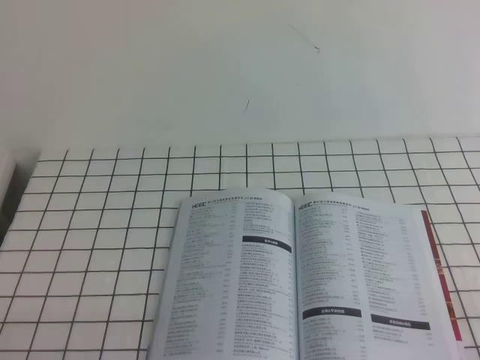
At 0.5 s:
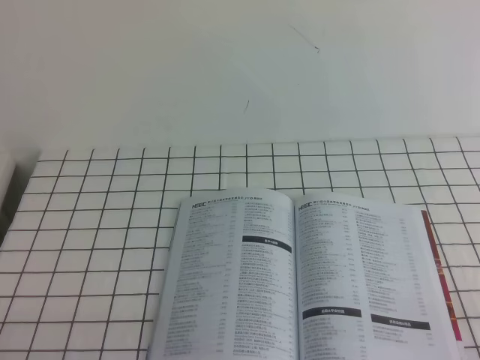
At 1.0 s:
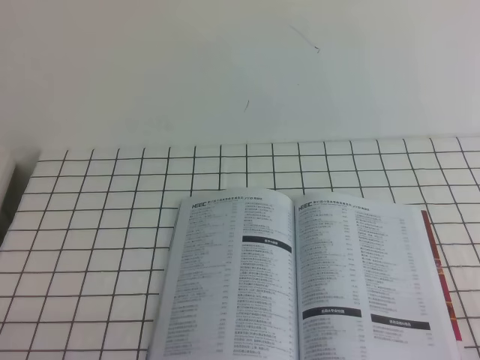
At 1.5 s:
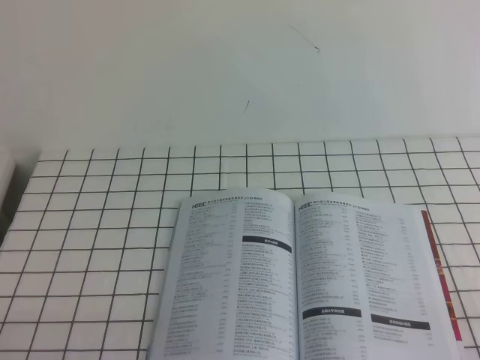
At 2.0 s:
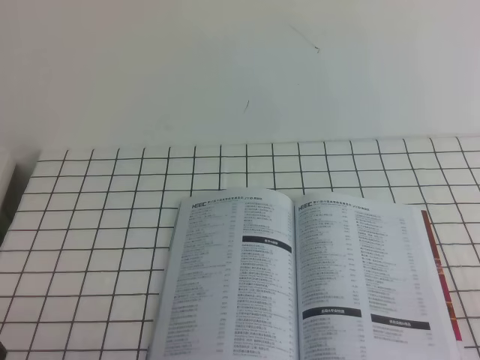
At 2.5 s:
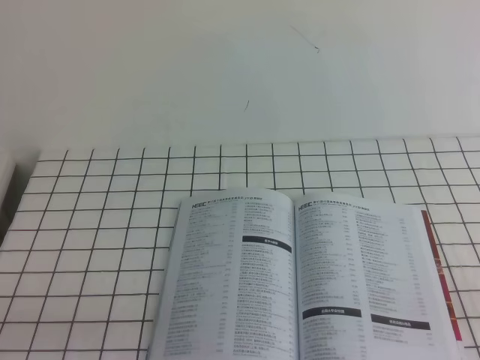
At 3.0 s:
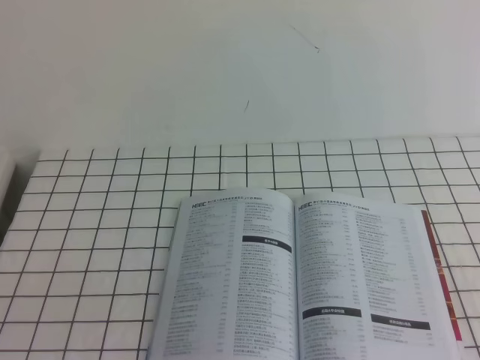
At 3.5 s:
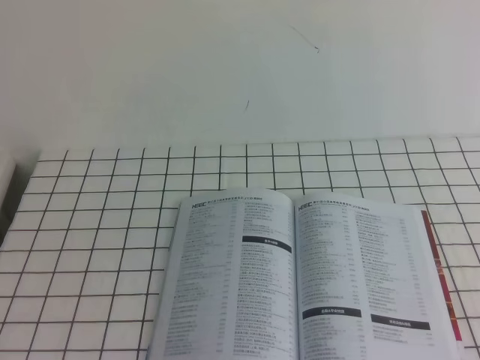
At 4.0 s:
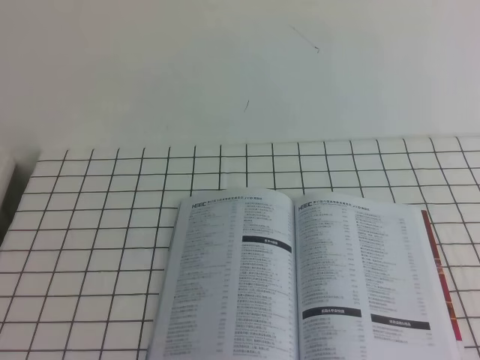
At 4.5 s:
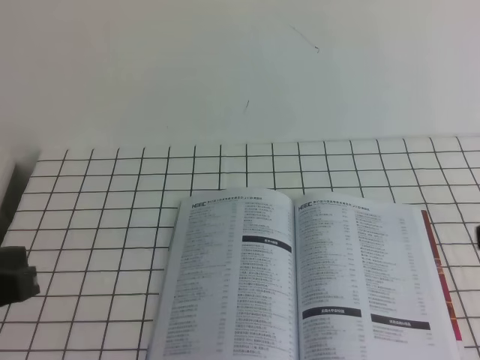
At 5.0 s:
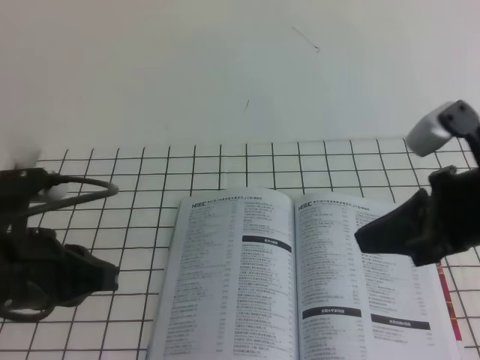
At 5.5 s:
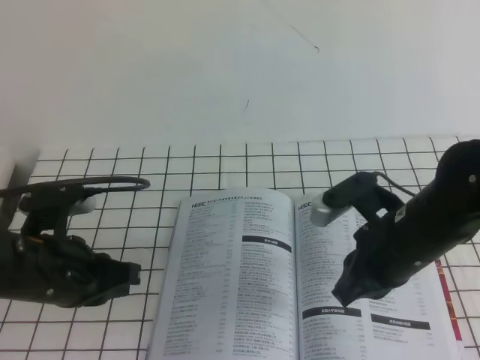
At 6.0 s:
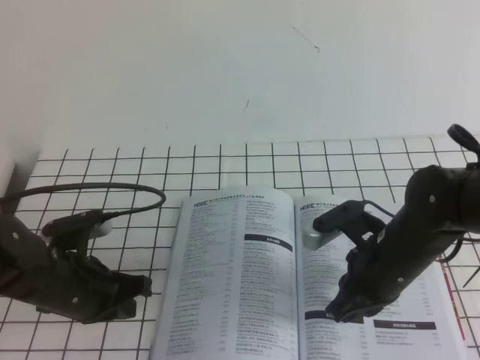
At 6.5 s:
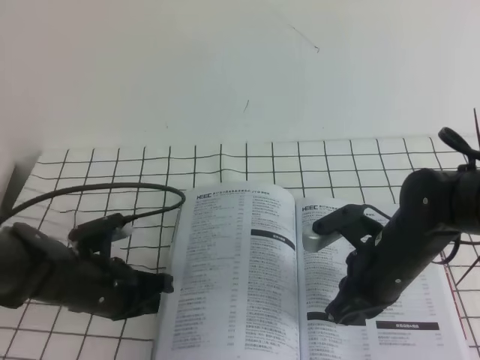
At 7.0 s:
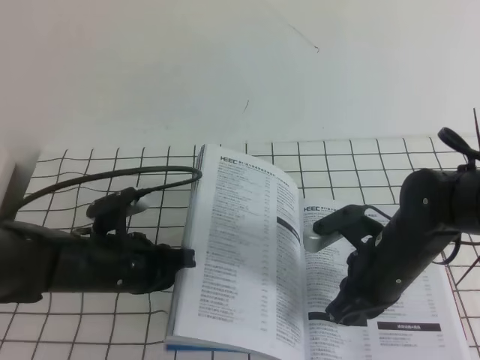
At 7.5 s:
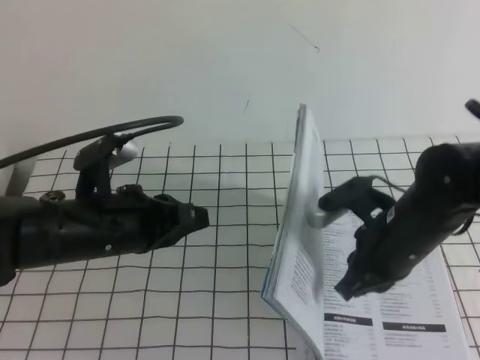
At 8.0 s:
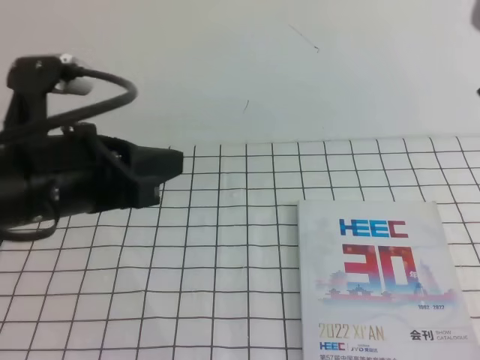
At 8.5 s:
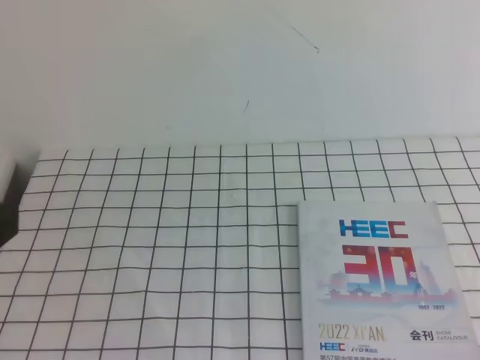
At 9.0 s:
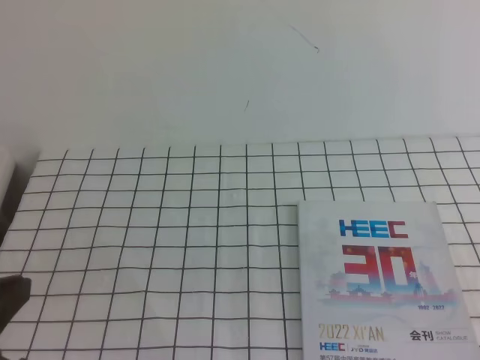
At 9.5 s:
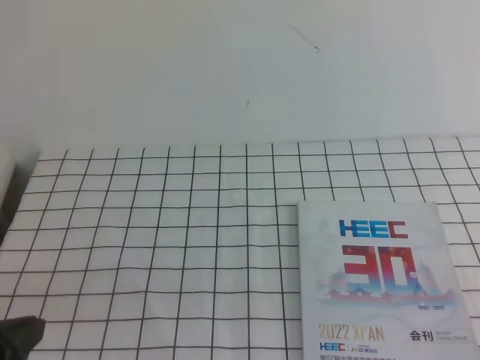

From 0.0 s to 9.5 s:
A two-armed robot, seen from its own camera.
Task of the whole recording: on the white tablecloth, hold the book with one hand and close it with the other.
From 4.0 s to 5.5 s: The right gripper goes approximately 30 cm to the left, forward and downward; the left gripper moves forward and downward, roughly 20 cm.
From 5.5 s to 7.5 s: The left gripper heads to the right, covering about 5 cm, and moves some 10 cm downward and comes back.
From 7.5 s to 9.5 s: The right gripper travels backward and to the right by some 25 cm, and travels upward and back again, some 20 cm each way. The left gripper is displaced backward and to the left by some 20 cm.

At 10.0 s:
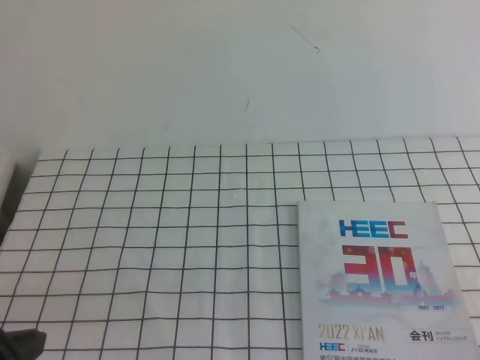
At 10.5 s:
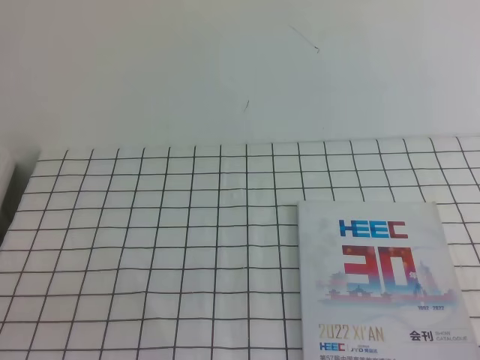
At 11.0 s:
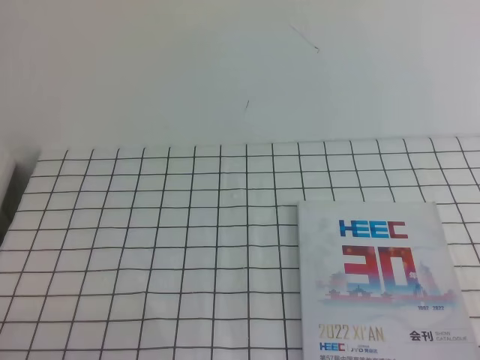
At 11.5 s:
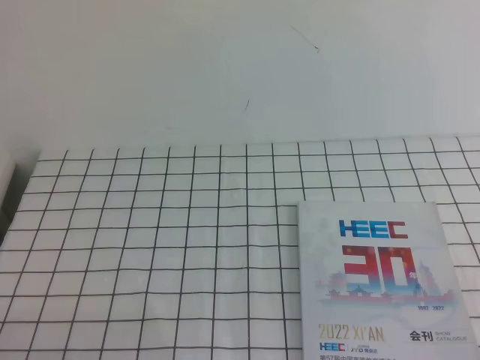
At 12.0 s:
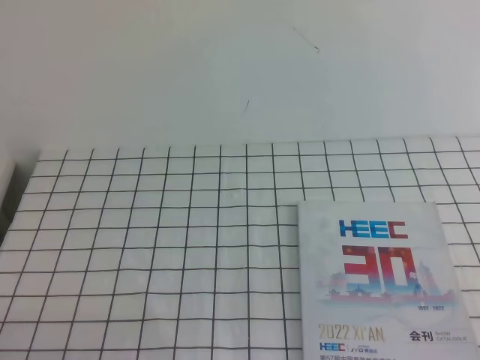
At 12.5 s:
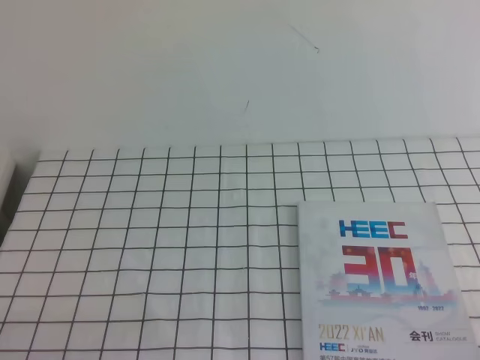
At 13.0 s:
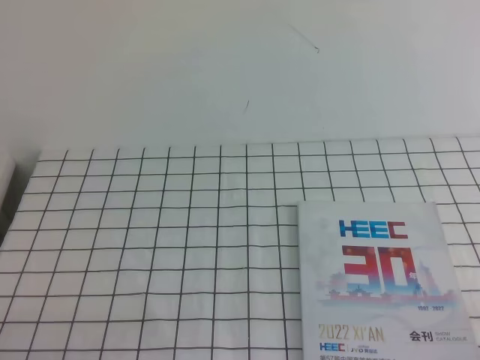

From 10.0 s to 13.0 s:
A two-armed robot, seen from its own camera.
Task of the whole recording: on the white tablecloth, hold the book with one hand and close it with the other.
From 10.0 s to 11.5 s: The left gripper travels downward by roughly 10 cm.
